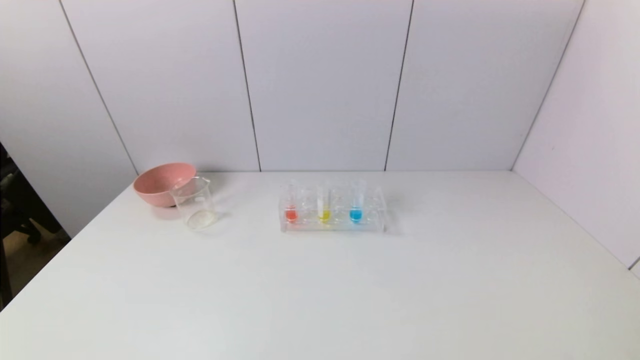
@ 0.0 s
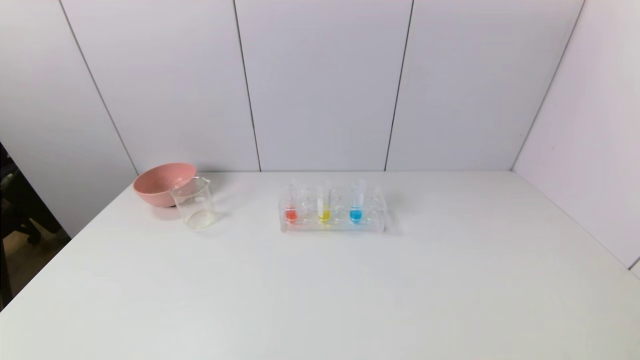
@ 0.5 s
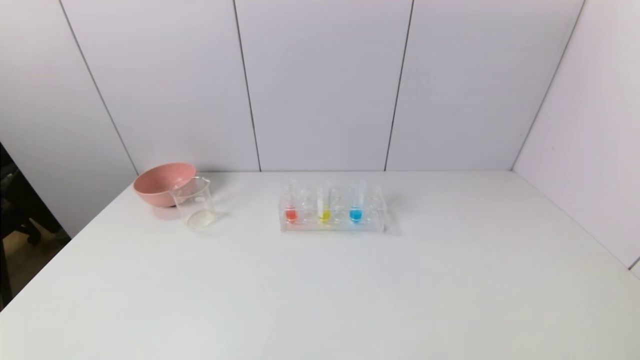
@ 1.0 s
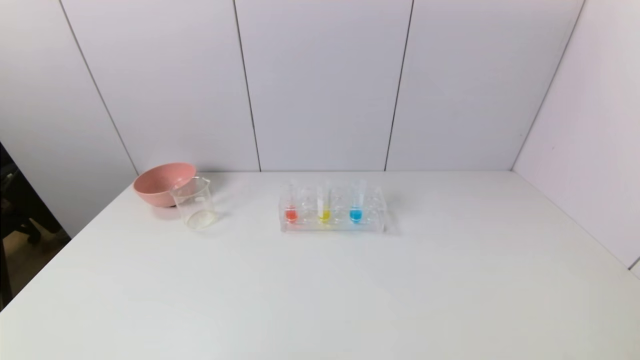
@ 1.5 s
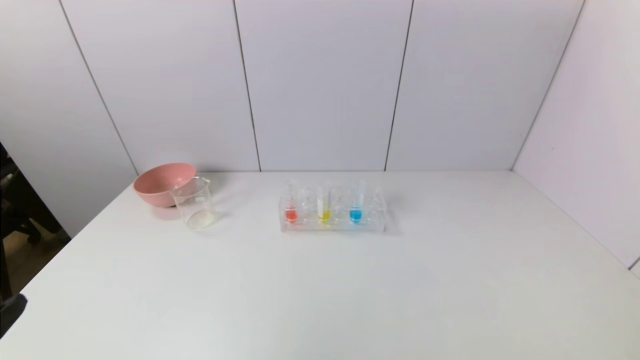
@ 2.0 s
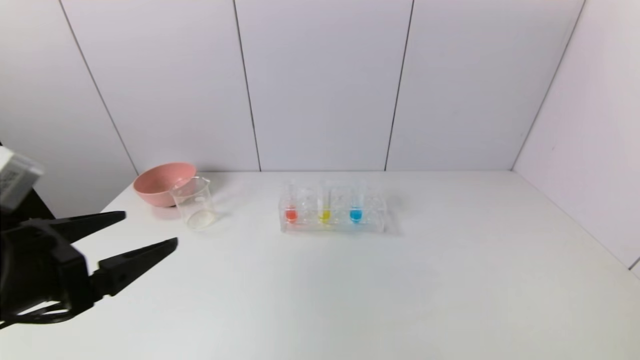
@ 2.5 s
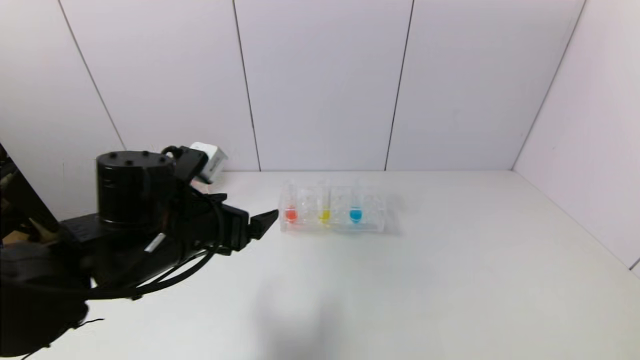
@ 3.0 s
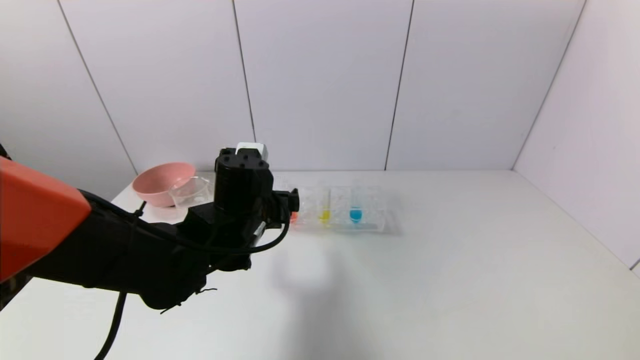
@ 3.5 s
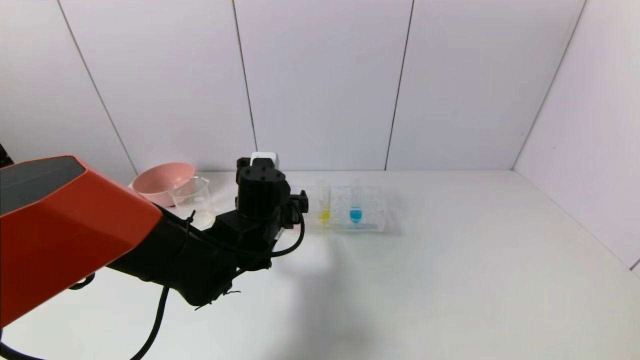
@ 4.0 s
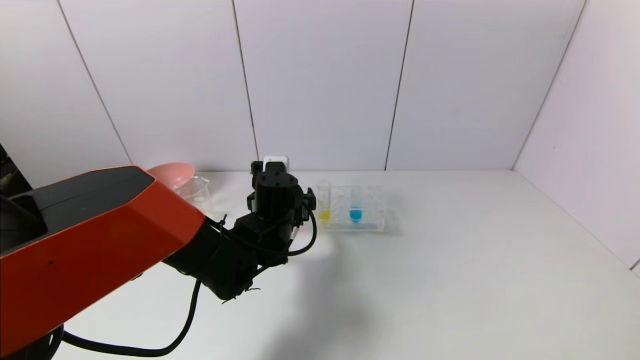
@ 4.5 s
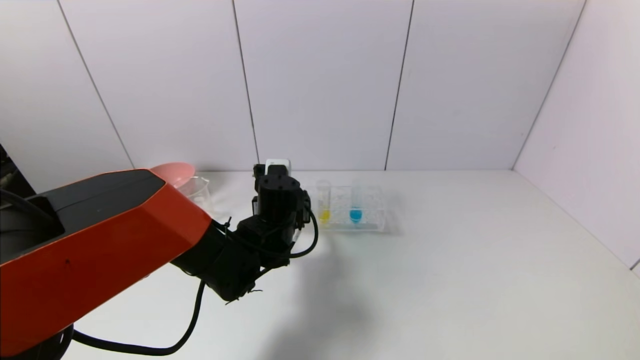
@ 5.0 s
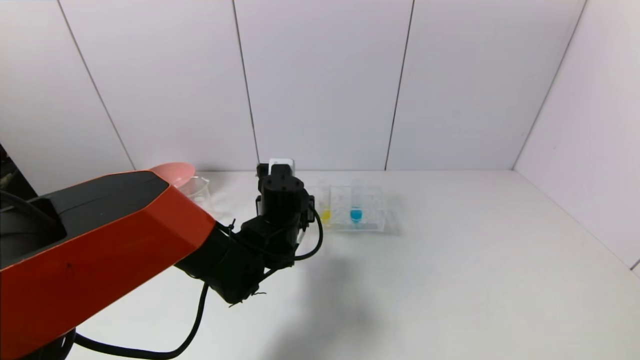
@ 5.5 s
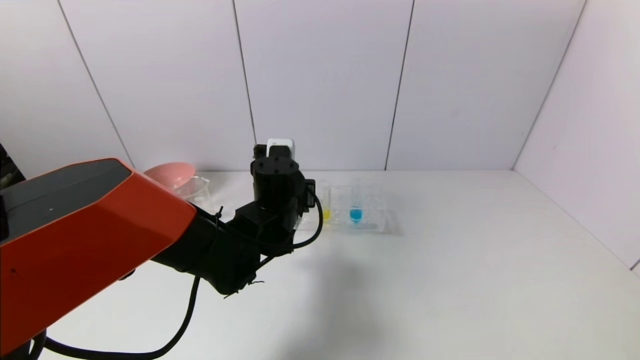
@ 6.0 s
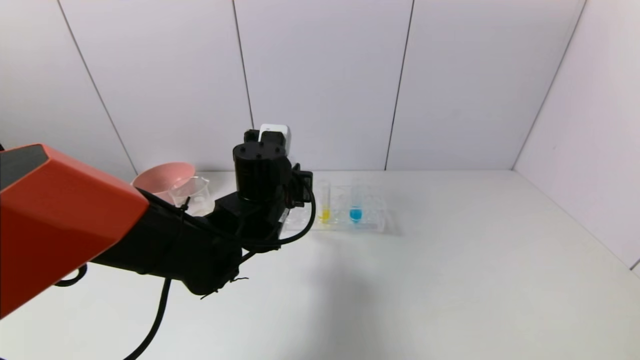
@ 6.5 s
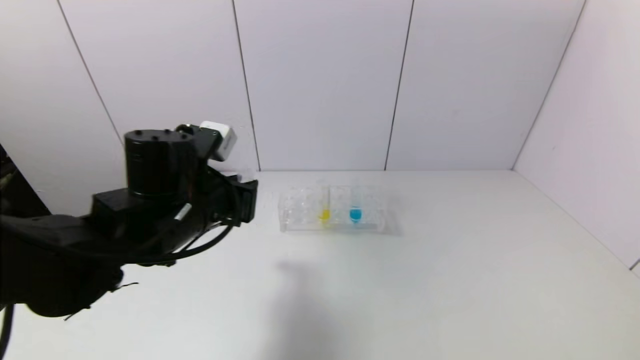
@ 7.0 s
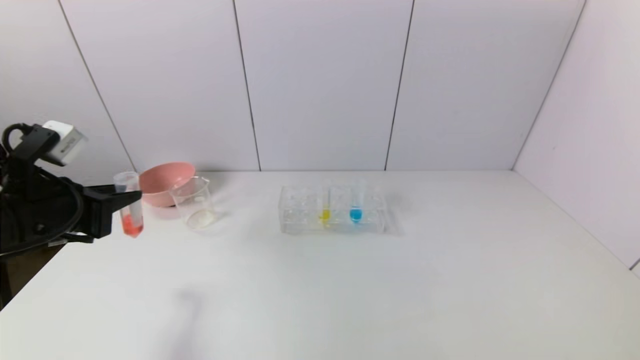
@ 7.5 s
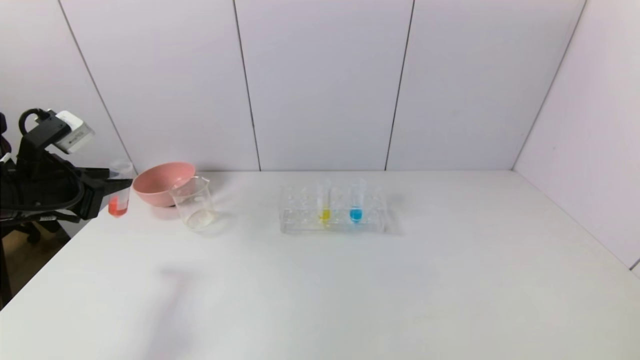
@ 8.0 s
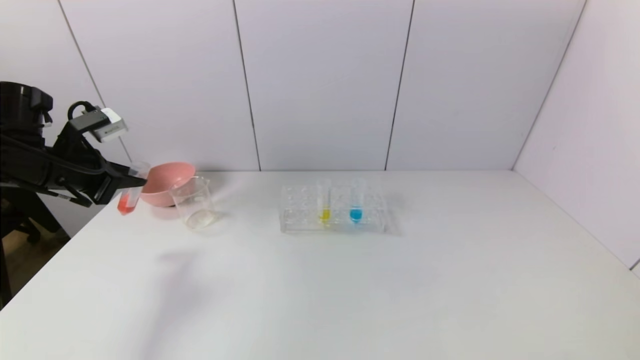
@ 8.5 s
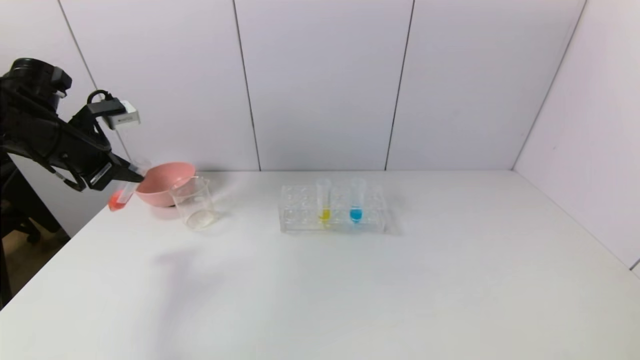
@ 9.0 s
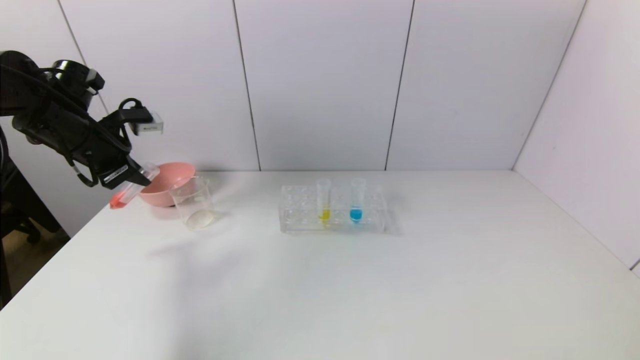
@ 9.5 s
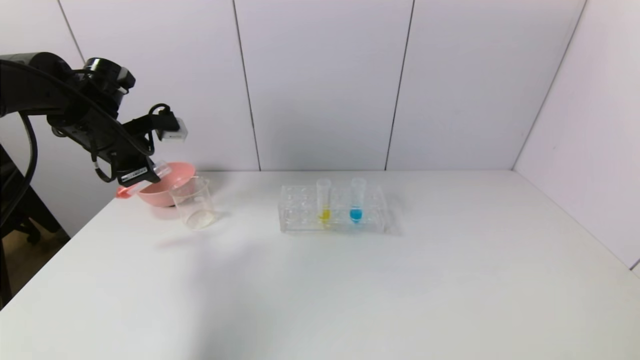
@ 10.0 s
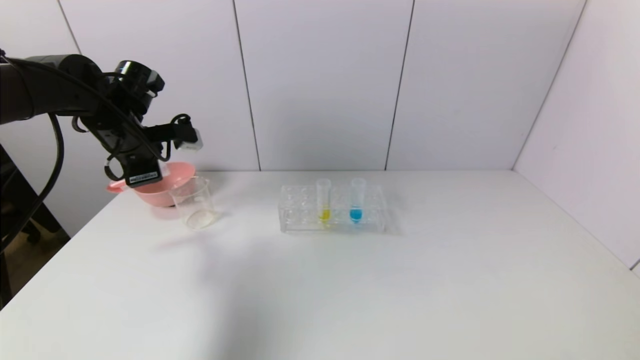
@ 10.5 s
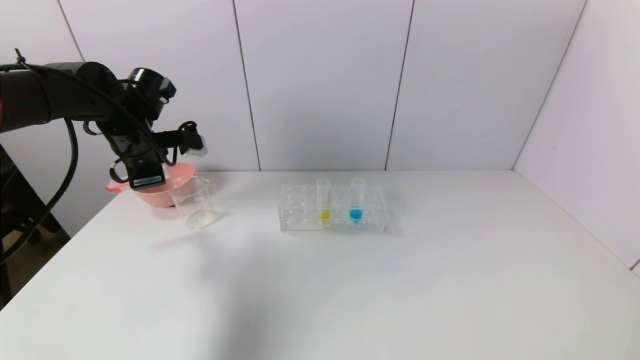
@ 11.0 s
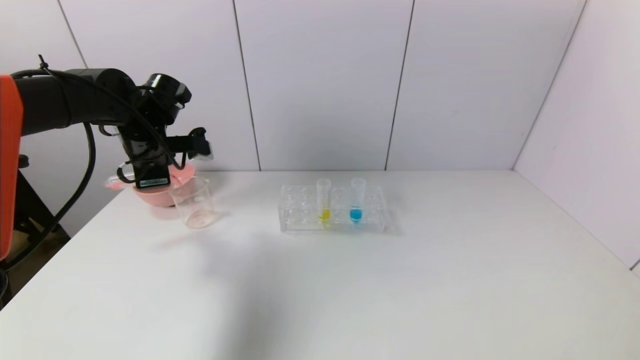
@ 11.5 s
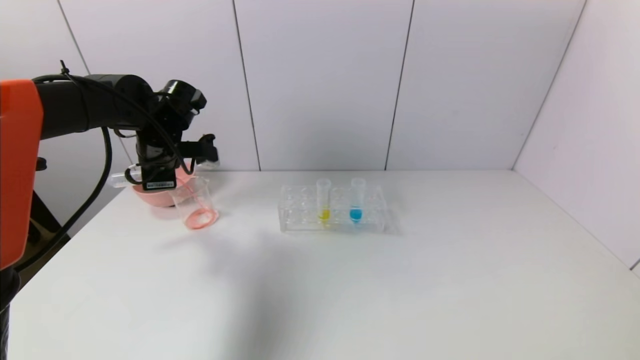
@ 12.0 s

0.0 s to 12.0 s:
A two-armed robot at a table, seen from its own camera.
Task of the whole recording: pick up the test tube with yellow pigment and the test tube with red pigment by grippers and pour them into the beaker.
Step, 0.0 to 5.0 s: Grasp the red reagent with the left gripper.
2.0 to 4.0 s: The left gripper is displaced forward and to the right by roughly 35 cm.
4.0 to 6.0 s: The left gripper closes.
6.0 to 8.0 s: The left gripper goes roughly 30 cm to the left.
8.0 to 10.0 s: The left gripper shifts about 10 cm forward.
10.0 to 12.0 s: The left gripper is displaced to the right by roughly 5 cm.

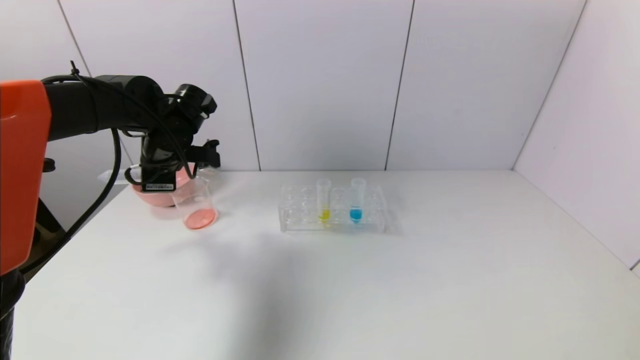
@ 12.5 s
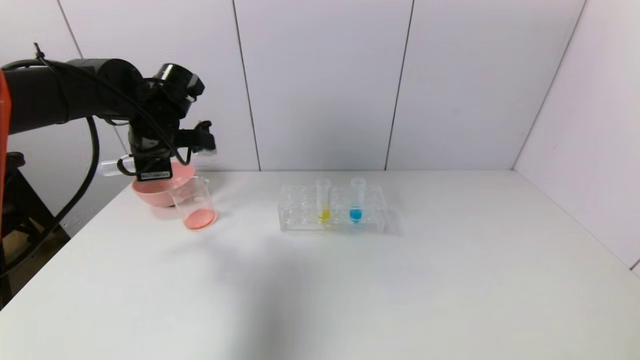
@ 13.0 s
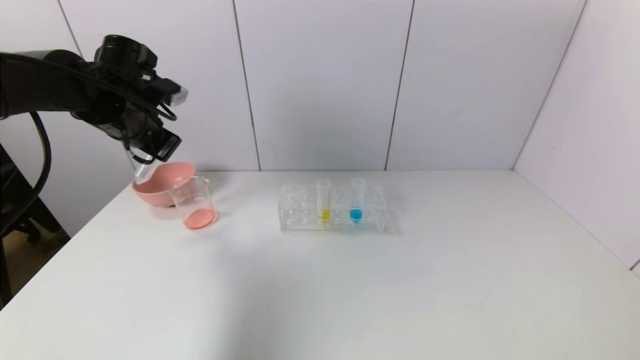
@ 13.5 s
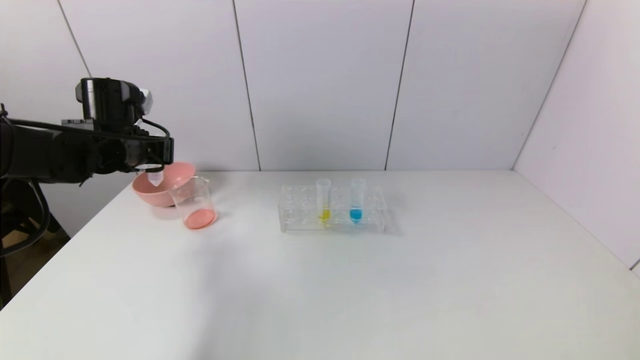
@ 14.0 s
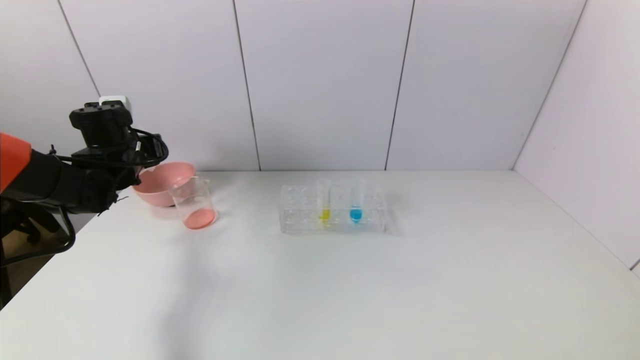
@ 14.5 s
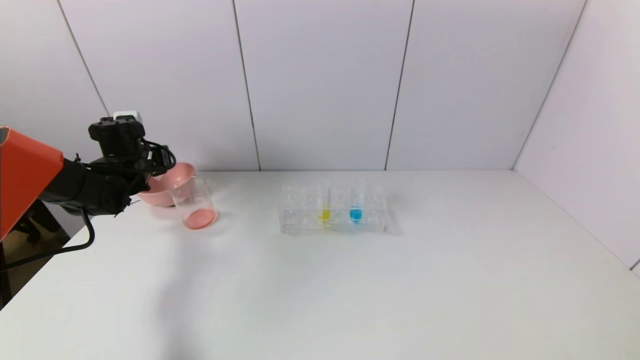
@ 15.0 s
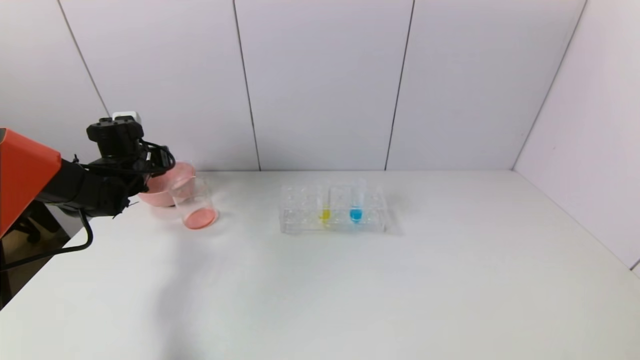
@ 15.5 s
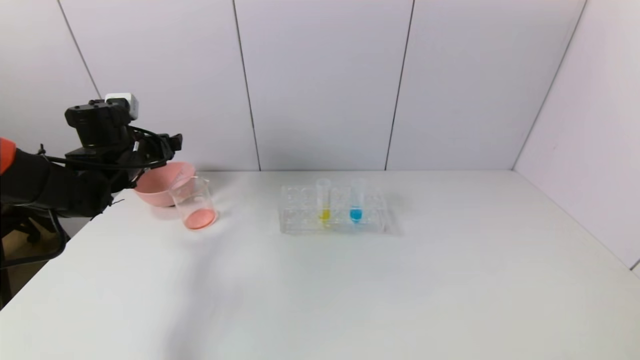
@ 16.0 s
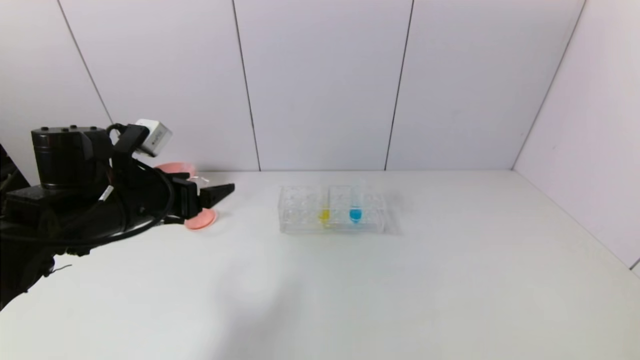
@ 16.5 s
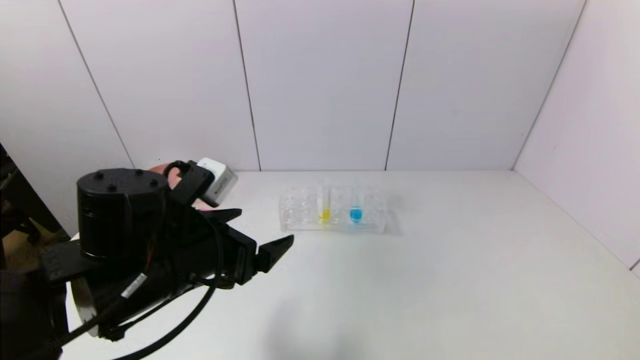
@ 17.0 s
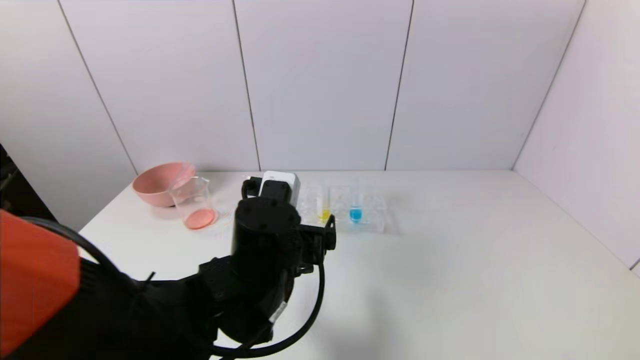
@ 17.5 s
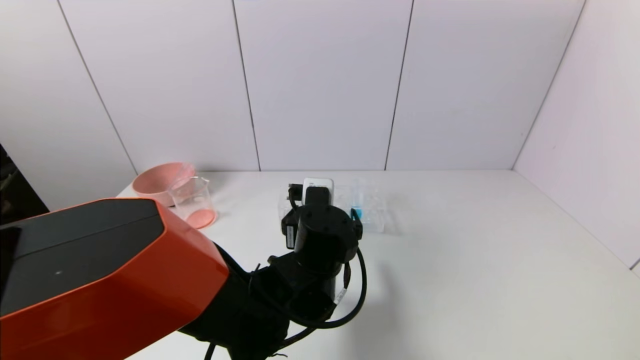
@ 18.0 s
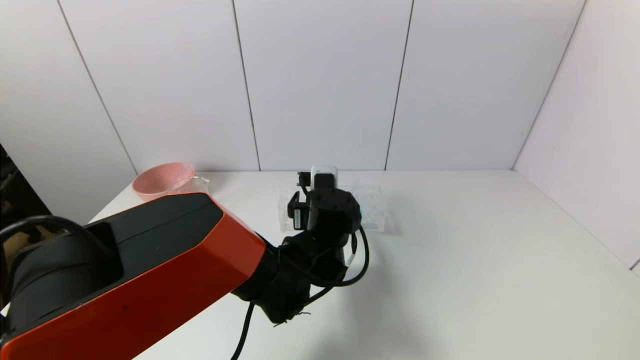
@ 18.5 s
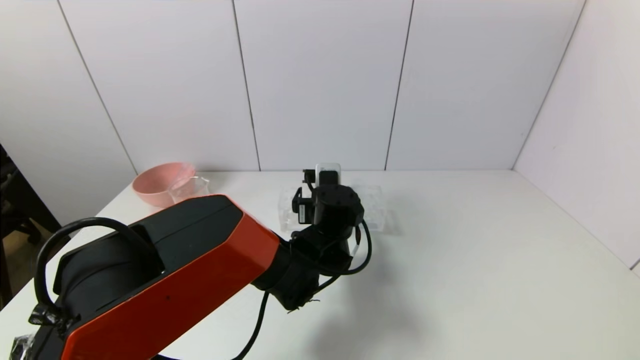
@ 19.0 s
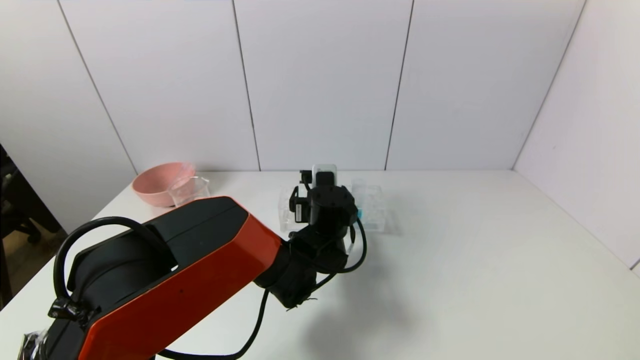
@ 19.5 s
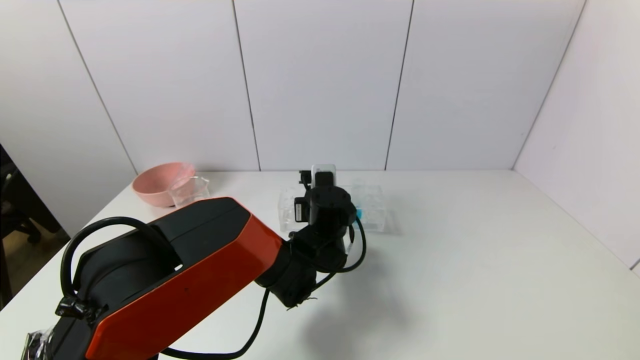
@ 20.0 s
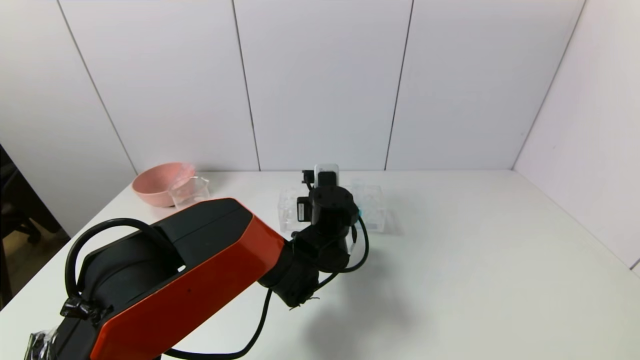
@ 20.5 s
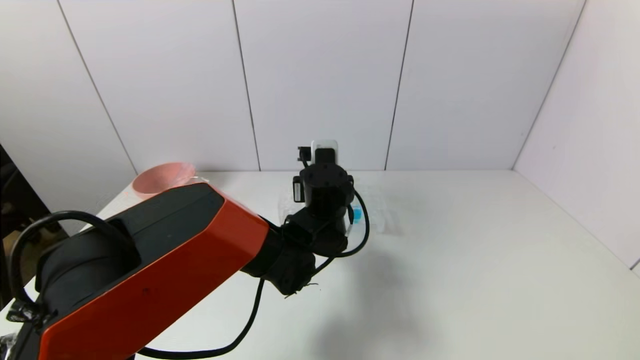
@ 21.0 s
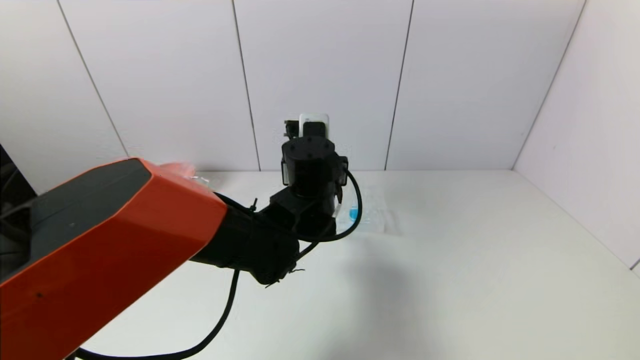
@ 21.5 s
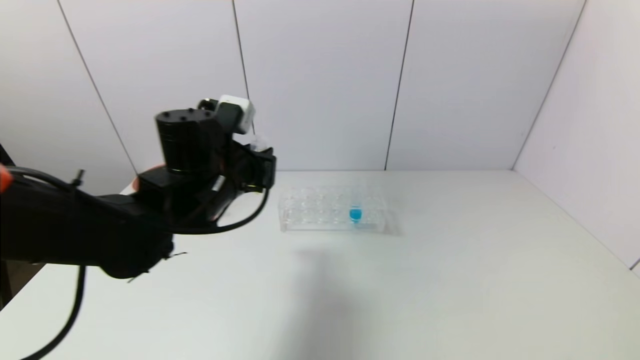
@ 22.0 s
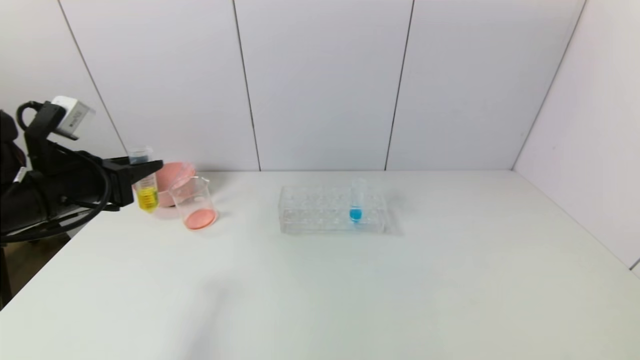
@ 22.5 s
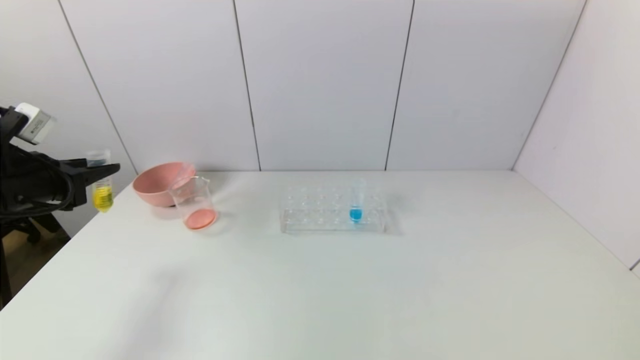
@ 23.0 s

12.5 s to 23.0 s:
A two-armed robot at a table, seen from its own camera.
Task of the whole recording: pick up the test tube with yellow pigment and the test tube with red pigment by grippers and pour them into the beaker.
Step, 13.0 to 15.5 s: Place the test tube into the pink bowl with the left gripper.
Step, 16.0 to 20.0 s: Grasp the yellow reagent with the left gripper.
12.5 to 14.5 s: The left gripper heads to the left, covering roughly 10 cm.
14.5 to 16.5 s: The left gripper moves backward and to the right, roughly 20 cm, and opens up.
16.5 to 19.0 s: The left gripper goes about 25 cm to the right.
19.0 to 21.0 s: The left gripper closes.
21.0 to 23.0 s: The left gripper goes roughly 40 cm to the left.
